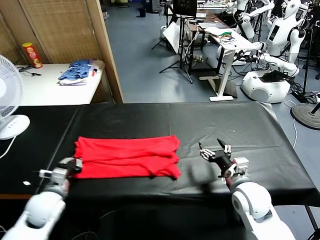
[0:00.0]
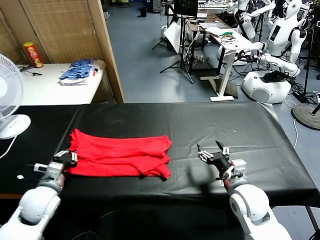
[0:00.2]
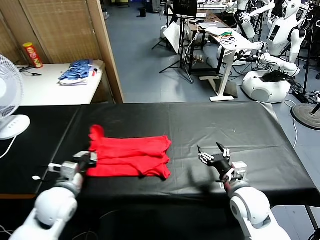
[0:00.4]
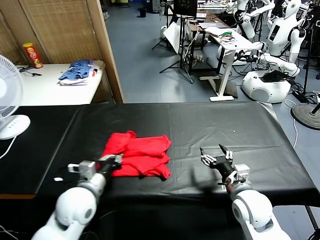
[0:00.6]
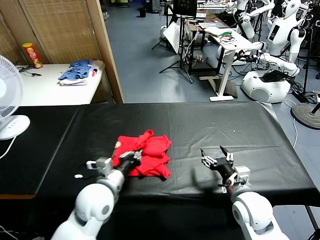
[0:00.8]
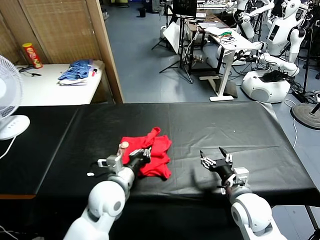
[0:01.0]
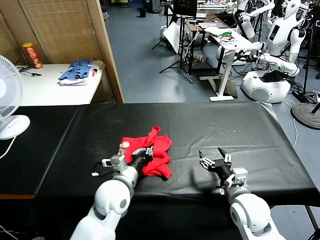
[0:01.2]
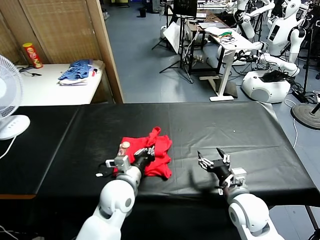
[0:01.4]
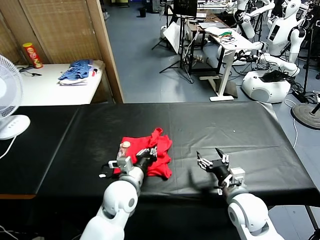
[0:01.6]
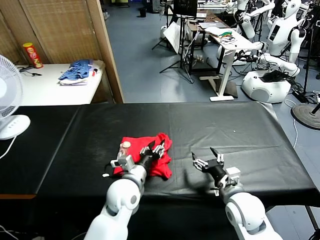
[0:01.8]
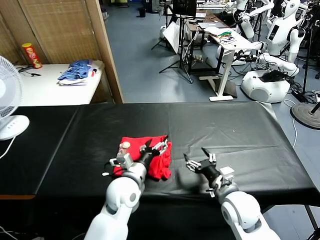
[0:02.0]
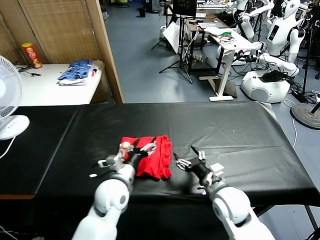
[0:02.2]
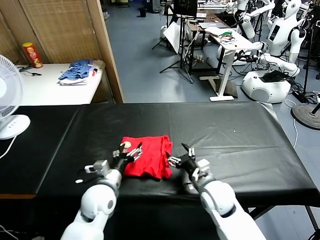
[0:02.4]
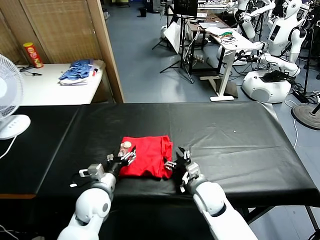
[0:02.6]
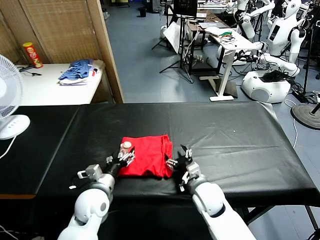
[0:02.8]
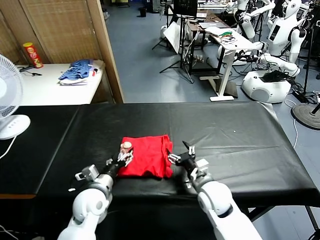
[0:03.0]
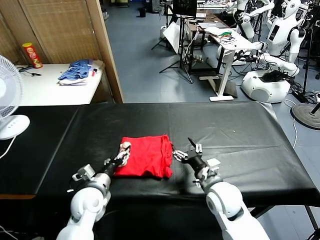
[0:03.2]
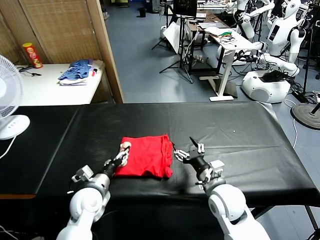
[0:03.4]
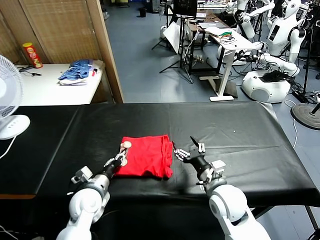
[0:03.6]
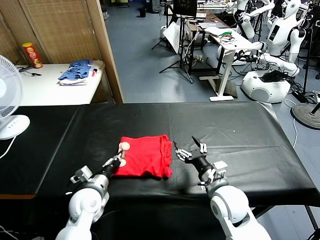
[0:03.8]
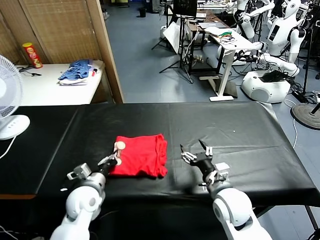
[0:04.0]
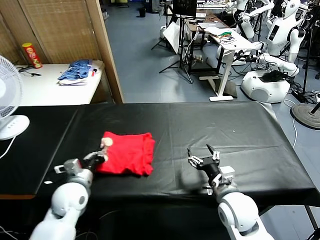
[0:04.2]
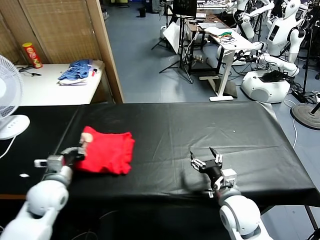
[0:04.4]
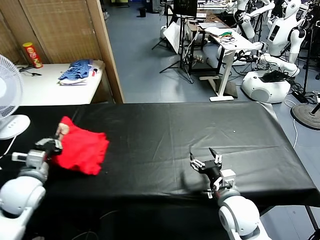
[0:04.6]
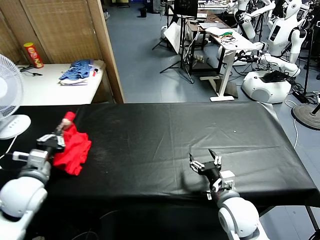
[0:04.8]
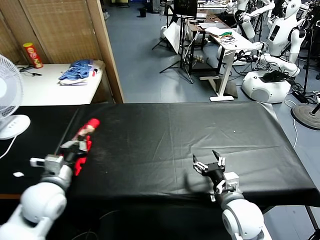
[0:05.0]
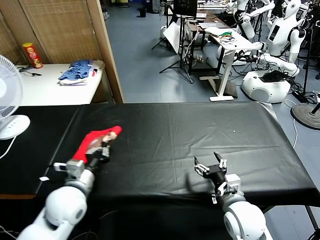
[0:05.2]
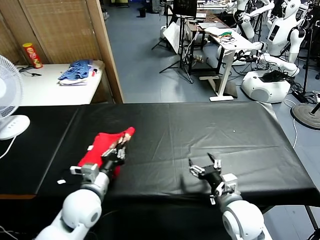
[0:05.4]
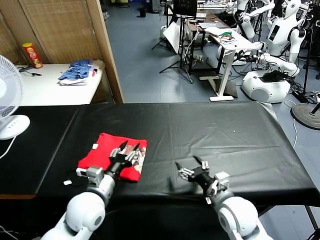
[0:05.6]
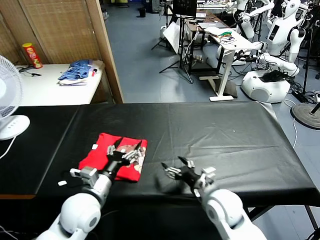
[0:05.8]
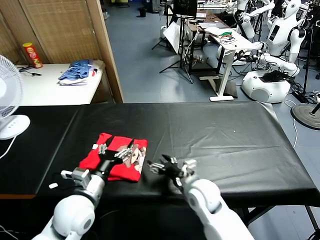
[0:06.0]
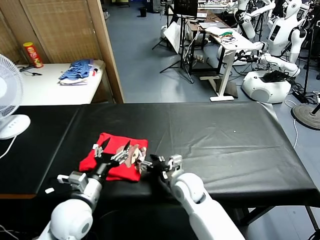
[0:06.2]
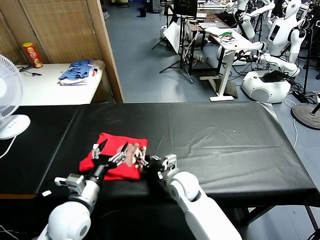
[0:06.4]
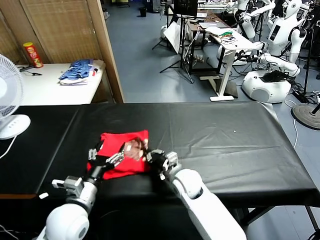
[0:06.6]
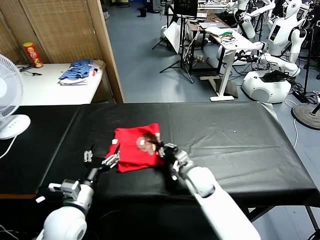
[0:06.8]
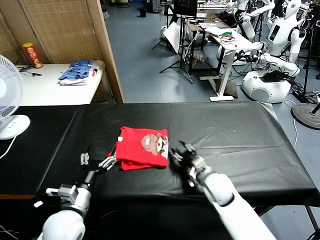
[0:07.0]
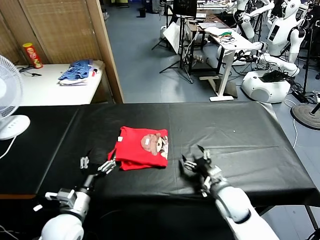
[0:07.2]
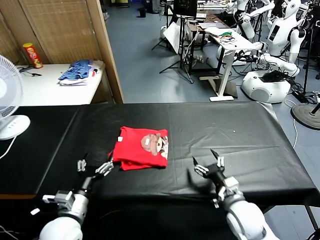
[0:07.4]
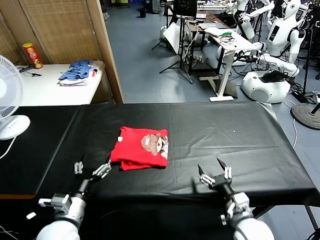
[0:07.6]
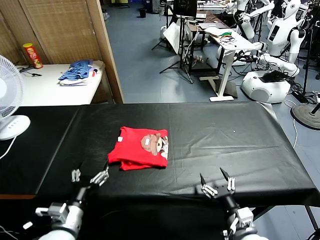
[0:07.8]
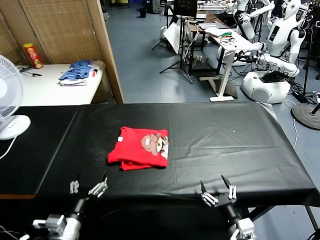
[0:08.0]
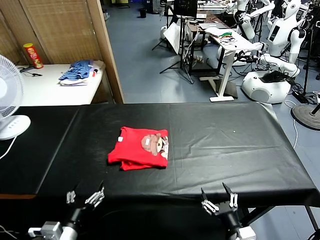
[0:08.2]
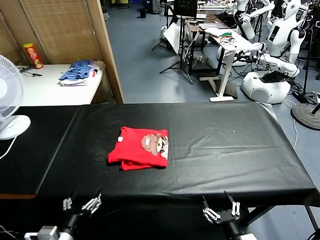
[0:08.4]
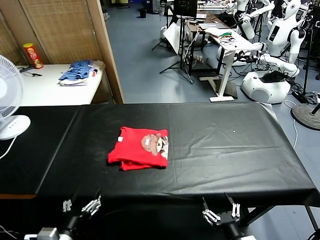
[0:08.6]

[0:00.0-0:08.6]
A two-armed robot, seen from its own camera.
Task of the whole recording: fold and organize the clothes.
Step, 0:00.0 to 0:02.0: use the left gripper to drag the left edge of the fabric to the left and folds it over the right edge.
Step, 0:02.2 to 0:05.6: Flip the folded clothes over with left gripper.
Step, 0:05.8 to 0:07.0: Drag the clothes to the center of the table.
0:00.0 to 0:01.4: The left gripper goes about 25 cm to the right.
0:01.4 to 0:02.8: The right gripper moves to the left, forward and downward, some 10 cm; the left gripper moves to the left, some 10 cm, and opens up.
0:02.8 to 0:04.4: The right gripper is displaced backward, to the right and upward by approximately 10 cm. Meanwhile the left gripper is displaced to the left by about 10 cm, and closes up.
0:04.4 to 0:05.8: The left gripper shifts approximately 10 cm to the right, and opens its fingers.
0:05.8 to 0:07.2: The left gripper ends up approximately 5 cm from where it was. The right gripper moves about 10 cm to the left and comes back, and closes, then opens again.
0:07.2 to 0:08.6: The left gripper is displaced backward by about 10 cm. Meanwhile the right gripper travels backward by roughly 20 cm.

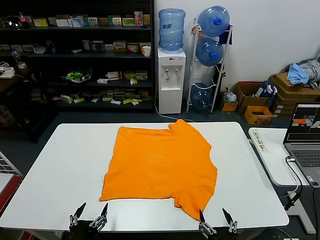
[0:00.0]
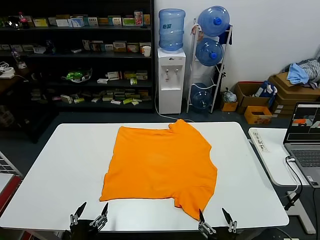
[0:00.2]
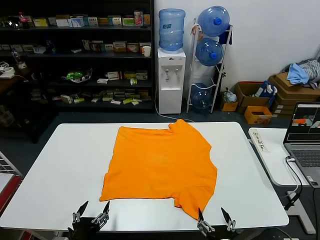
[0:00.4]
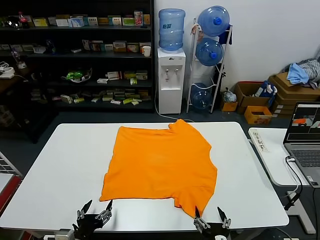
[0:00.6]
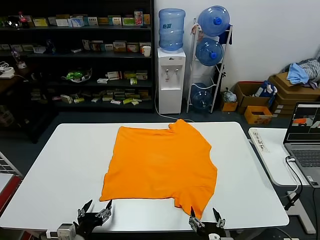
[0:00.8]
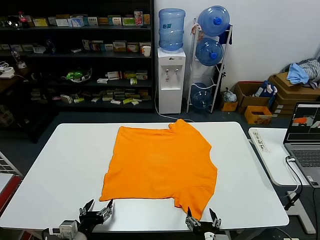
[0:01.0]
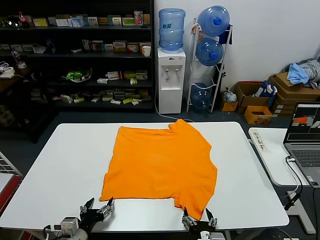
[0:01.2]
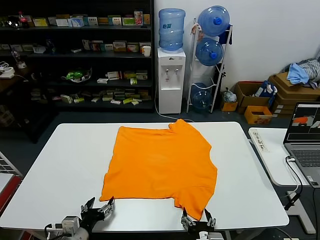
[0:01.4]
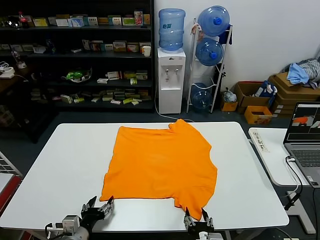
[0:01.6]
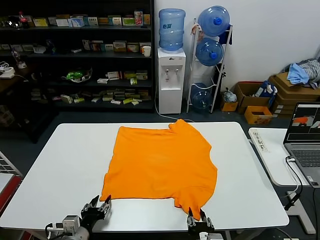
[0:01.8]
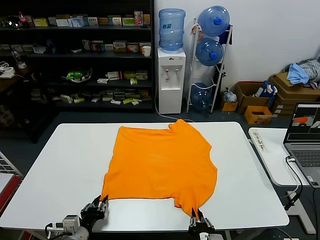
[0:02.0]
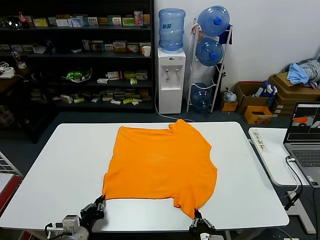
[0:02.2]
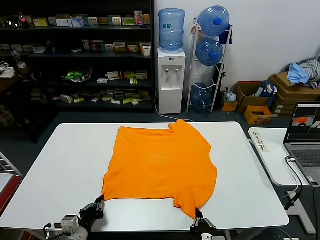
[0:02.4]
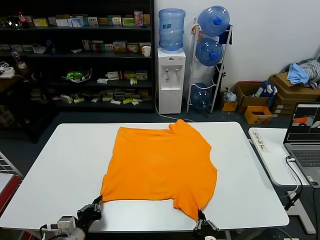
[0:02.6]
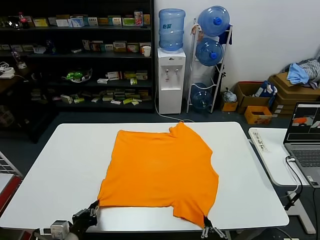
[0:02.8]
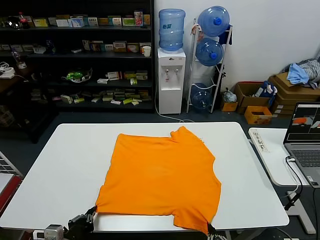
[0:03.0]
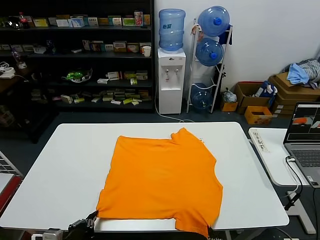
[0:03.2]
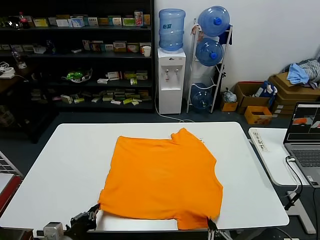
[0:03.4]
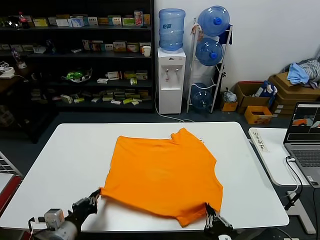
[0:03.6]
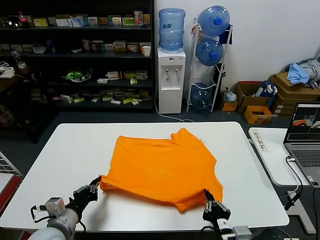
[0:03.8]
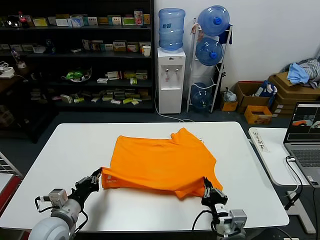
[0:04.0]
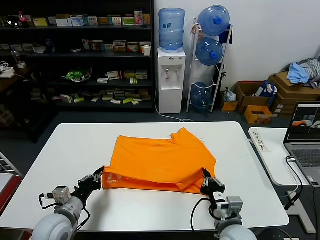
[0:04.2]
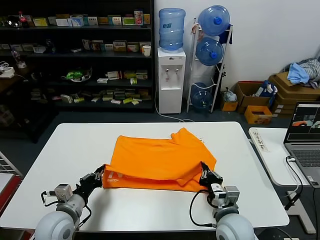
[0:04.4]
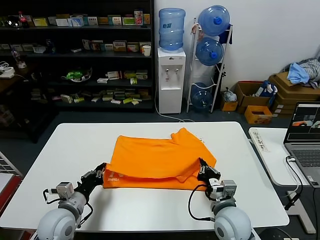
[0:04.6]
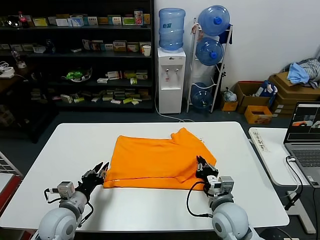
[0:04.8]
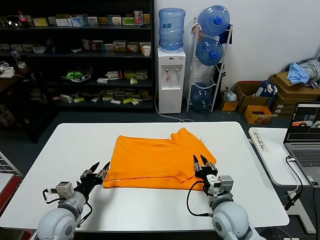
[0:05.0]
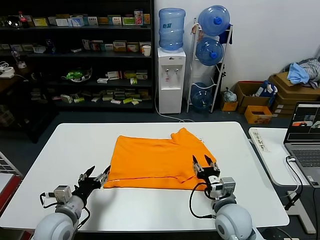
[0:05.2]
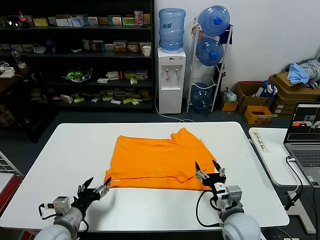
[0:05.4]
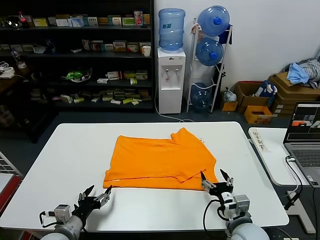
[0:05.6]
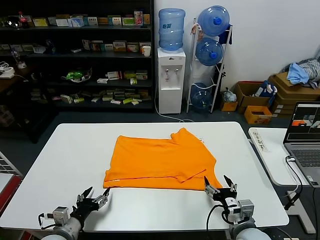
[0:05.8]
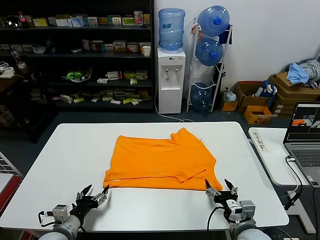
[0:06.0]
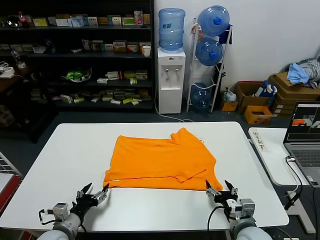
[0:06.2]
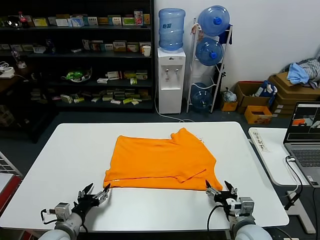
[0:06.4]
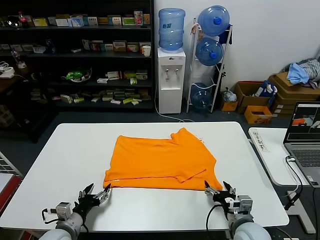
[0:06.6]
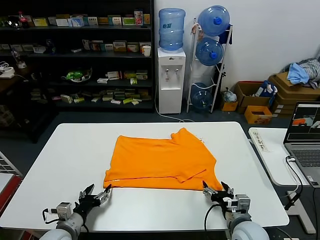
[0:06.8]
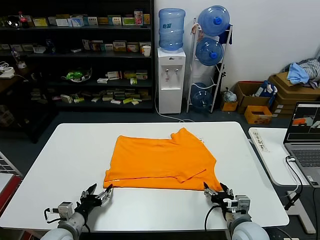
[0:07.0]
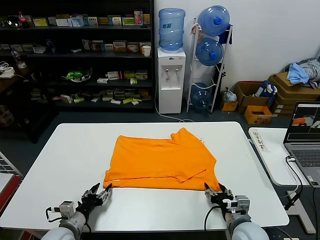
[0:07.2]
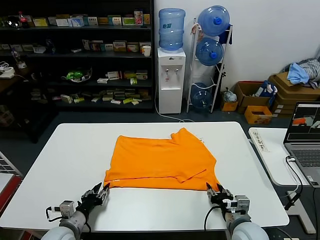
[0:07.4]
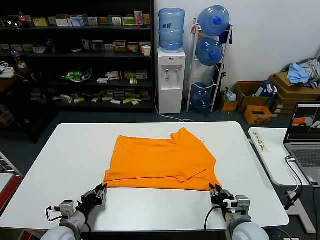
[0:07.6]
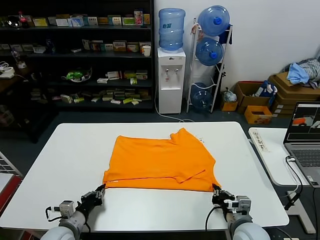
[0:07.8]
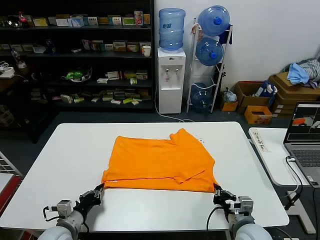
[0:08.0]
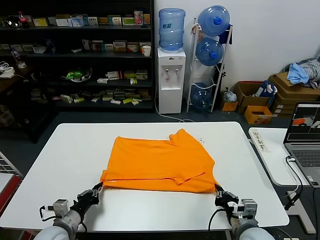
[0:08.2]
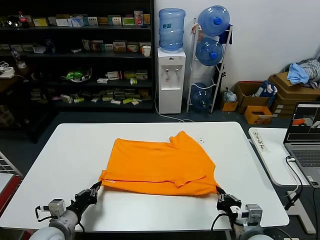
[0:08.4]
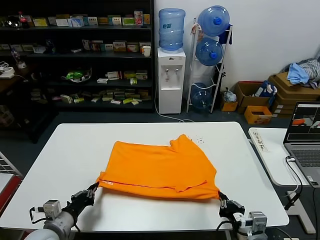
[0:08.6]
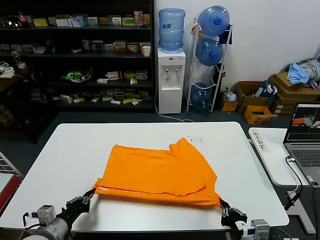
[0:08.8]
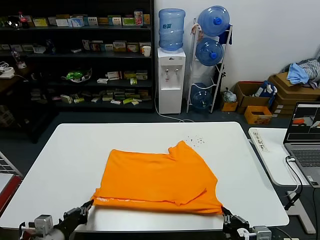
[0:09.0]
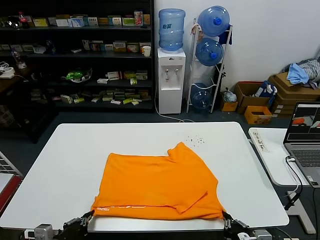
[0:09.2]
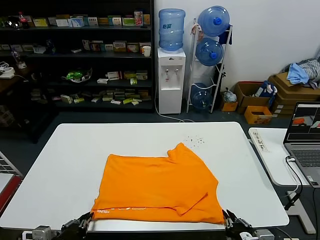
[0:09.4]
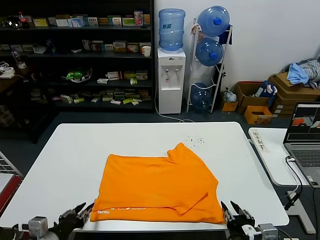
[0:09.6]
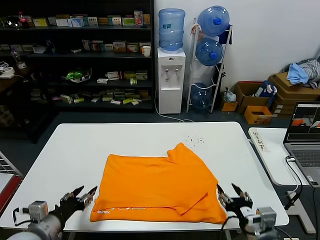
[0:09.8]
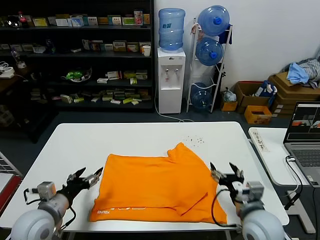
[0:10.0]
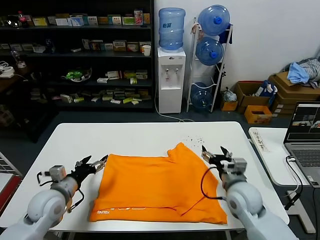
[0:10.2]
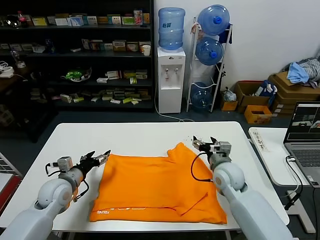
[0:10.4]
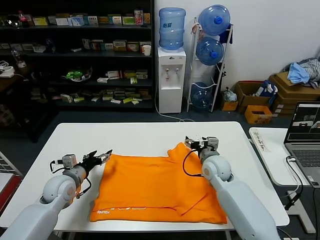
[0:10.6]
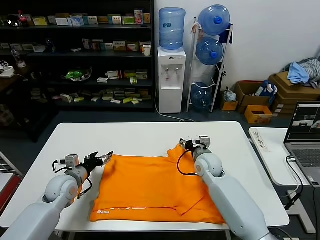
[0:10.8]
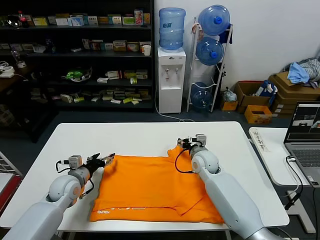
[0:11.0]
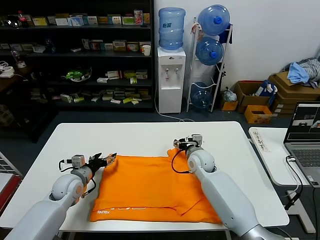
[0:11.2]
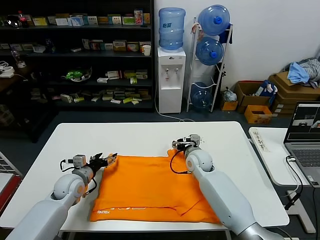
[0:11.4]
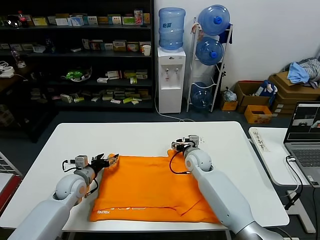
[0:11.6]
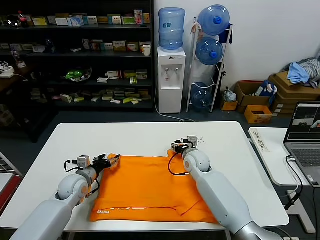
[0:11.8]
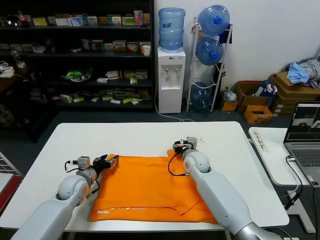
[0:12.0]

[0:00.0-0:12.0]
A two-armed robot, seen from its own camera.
Task of the whole recording: fold and organize the clothes.
Step, 0:00.0 to 0:02.6: use both grippers simultaneously to clamp the lower edge of the clothing fabric.
Step, 0:02.8 to 0:04.8: use both grippers to drag the lower edge of the fabric forward and fold it over the upper edge.
Step, 0:05.0 to 0:09.4: Drag the clothes downward with both gripper.
0:01.6 to 0:03.0: The left gripper changes place by some 5 cm, and closes up, while the right gripper is displaced backward and upward by about 10 cm, and closes up.
0:03.0 to 0:04.4: The right gripper travels forward by roughly 20 cm. The left gripper travels forward by roughly 10 cm.
0:04.4 to 0:06.0: The right gripper travels to the right by roughly 5 cm, and opens. Meanwhile the left gripper shifts approximately 5 cm downward, and opens up.
0:06.0 to 0:07.6: The right gripper closes its fingers, while the left gripper closes its fingers.
0:07.6 to 0:09.0: The right gripper is displaced backward by about 10 cm. The left gripper goes some 10 cm upward and backward.
0:09.0 to 0:10.4: The right gripper is displaced forward by some 25 cm, and opens. Meanwhile the left gripper is displaced forward by approximately 20 cm, and opens.
0:10.4 to 0:12.0: The left gripper shifts some 10 cm downward and forward. Meanwhile the right gripper moves forward, to the left and downward, about 10 cm, and closes.

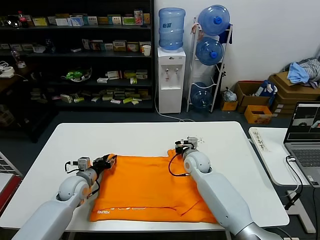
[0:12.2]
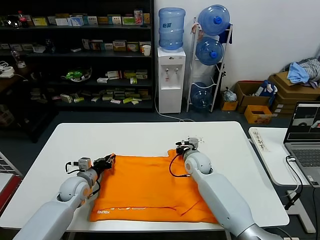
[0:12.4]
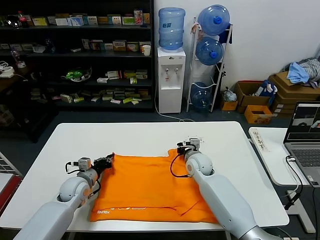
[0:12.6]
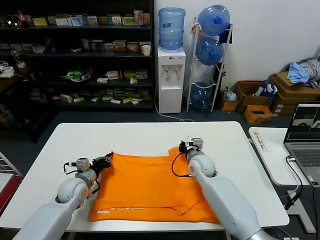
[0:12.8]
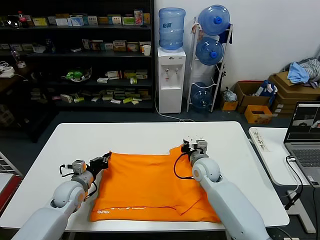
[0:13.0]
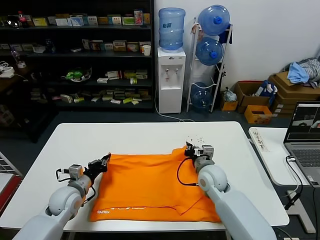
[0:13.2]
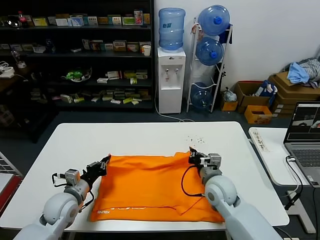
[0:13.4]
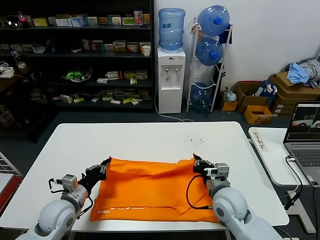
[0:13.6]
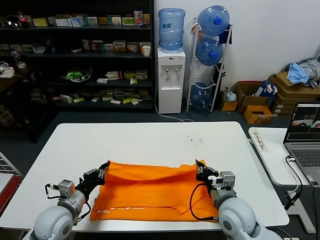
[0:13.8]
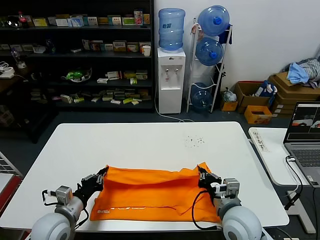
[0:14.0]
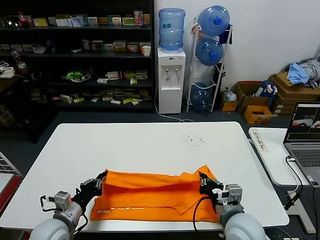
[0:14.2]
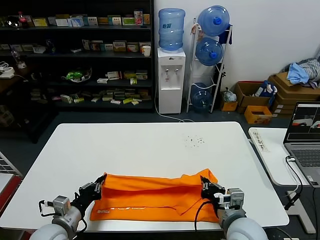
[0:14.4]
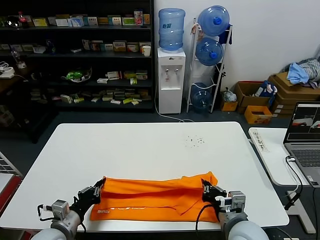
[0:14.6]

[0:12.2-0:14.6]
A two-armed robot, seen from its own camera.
Task of the whole recording: fold and organize the clothes.
0:12.2 to 0:13.4: The right gripper heads backward, covering approximately 15 cm, while the left gripper shifts about 10 cm backward, and closes.
0:13.4 to 0:14.6: Both grippers travel together backward, approximately 10 cm.
